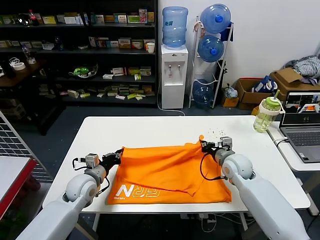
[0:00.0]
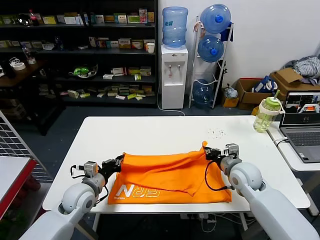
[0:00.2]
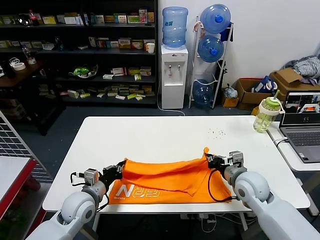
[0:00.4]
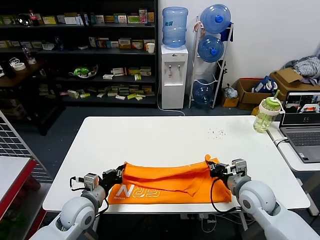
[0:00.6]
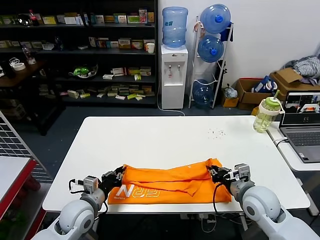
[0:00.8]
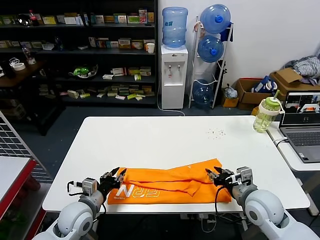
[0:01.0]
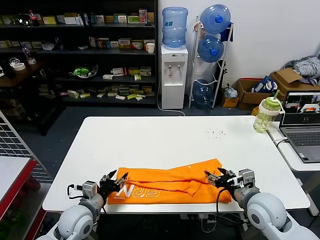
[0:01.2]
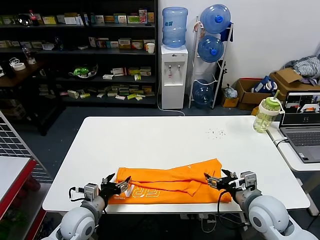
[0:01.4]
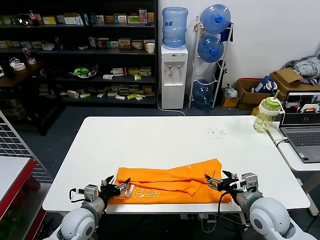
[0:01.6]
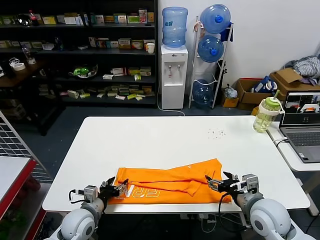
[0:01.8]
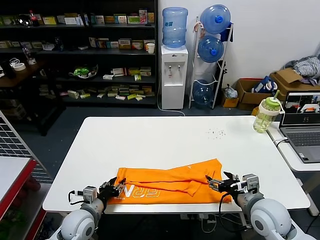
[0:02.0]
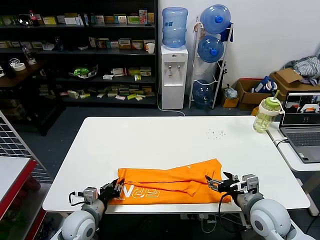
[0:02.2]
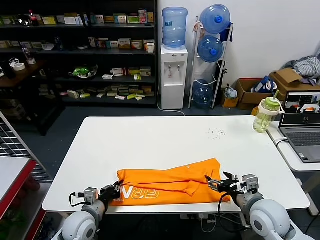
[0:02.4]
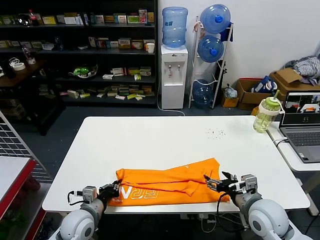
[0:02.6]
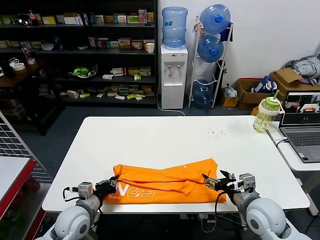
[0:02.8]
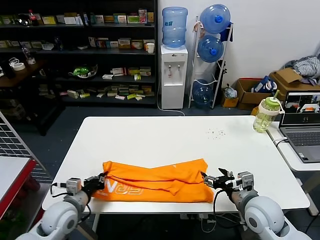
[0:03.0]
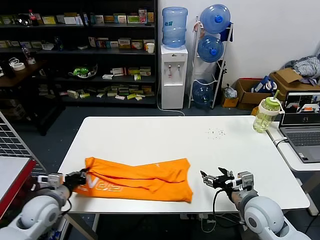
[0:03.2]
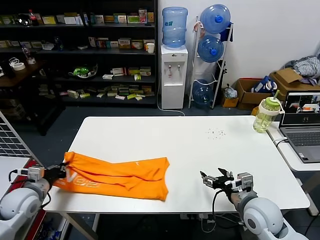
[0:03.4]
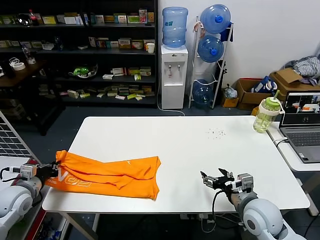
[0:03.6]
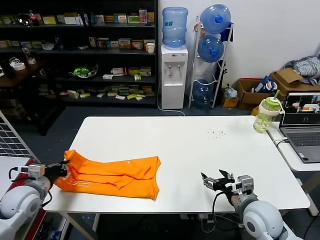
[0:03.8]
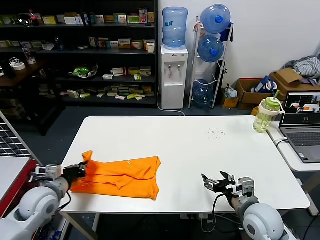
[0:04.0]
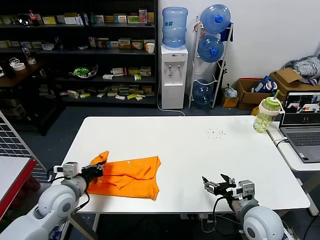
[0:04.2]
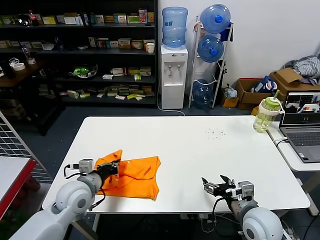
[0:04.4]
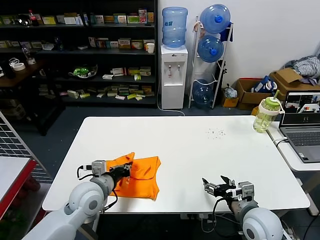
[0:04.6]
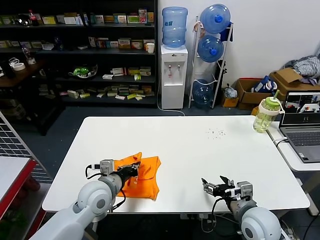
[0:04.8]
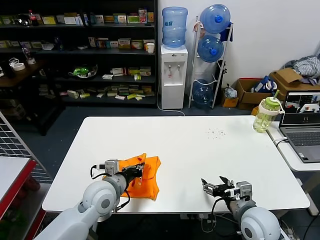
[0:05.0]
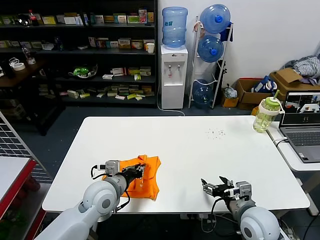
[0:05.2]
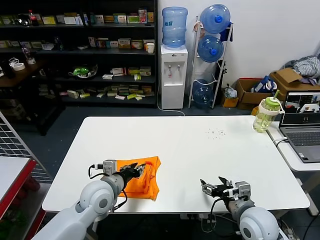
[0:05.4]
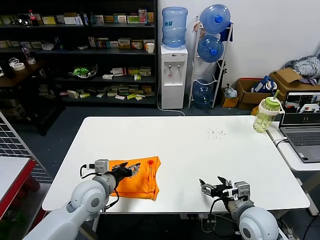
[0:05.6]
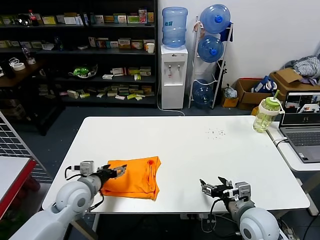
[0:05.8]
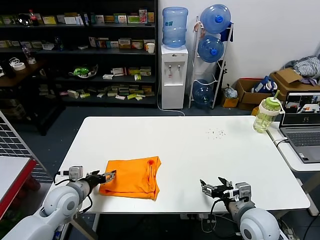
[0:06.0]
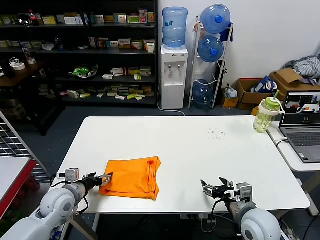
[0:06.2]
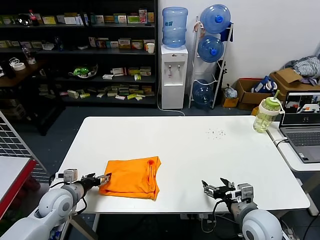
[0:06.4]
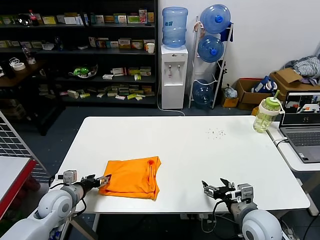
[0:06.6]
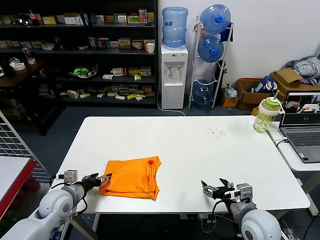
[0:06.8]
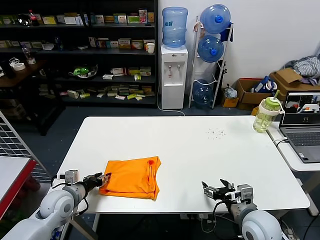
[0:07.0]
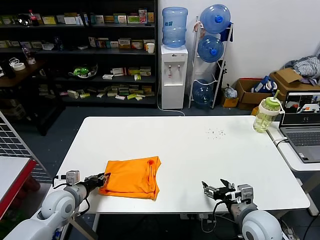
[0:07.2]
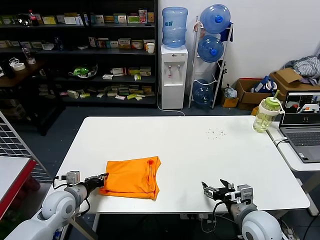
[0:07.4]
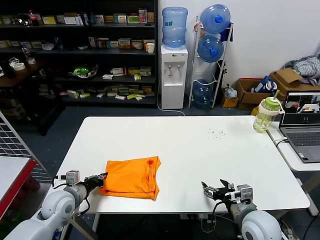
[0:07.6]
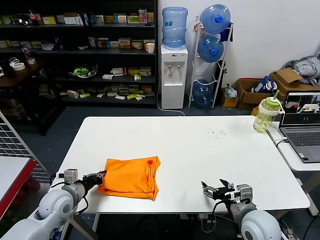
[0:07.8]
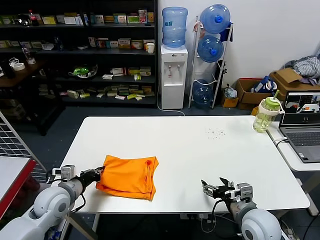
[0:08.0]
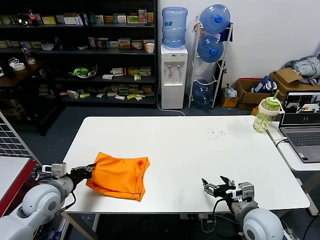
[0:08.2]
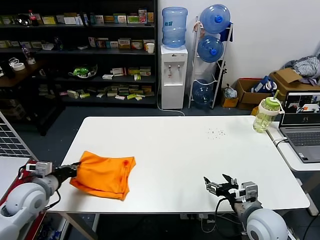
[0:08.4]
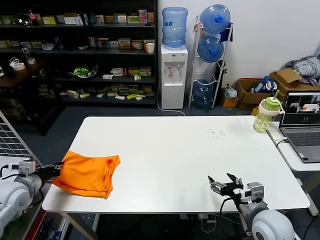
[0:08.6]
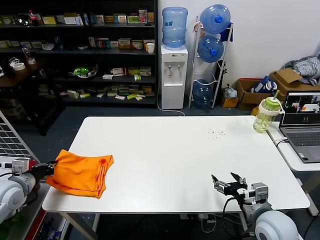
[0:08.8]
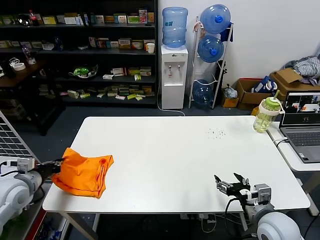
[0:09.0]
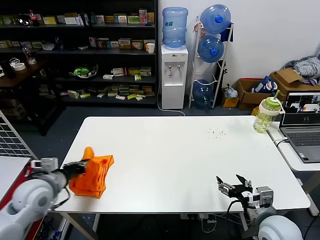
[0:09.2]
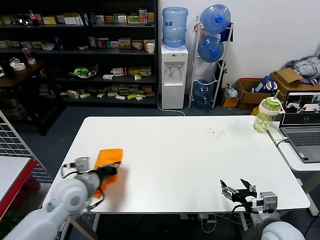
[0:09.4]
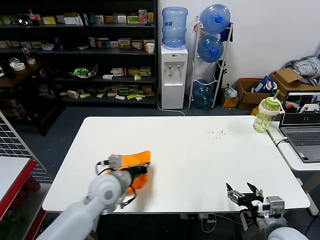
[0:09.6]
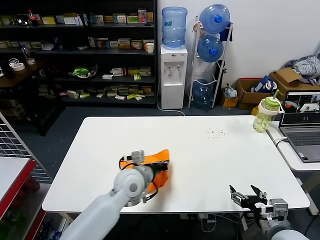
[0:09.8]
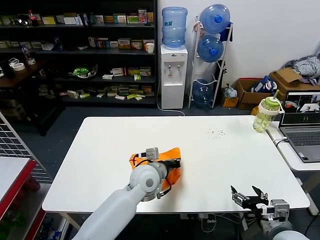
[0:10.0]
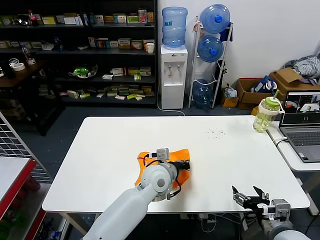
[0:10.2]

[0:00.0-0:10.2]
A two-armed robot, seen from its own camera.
Task of the whole recording: fold and organize the clothes.
Step, 0:00.0 to 0:00.8: use both grippers to drag the upper edge of the fabric backward and fold it over the lower edge.
Step, 0:01.0 to 0:02.4: use the left gripper to clamp the left edge of the fabric.
Step, 0:02.6 to 0:05.4: use the left gripper to drag the left edge of the fabric to the left and folds it over the right edge.
0:00.0 to 0:01.4: The two grippers go about 15 cm backward. The right gripper opens up. Meanwhile the left gripper opens.
0:01.4 to 0:03.0: The left gripper closes up.
0:03.0 to 0:04.4: The left gripper is displaced upward by some 5 cm, and reaches approximately 15 cm to the left, then returns.
0:04.4 to 0:05.8: The left gripper goes to the right and returns, some 10 cm each way, and opens its fingers.
0:05.8 to 0:07.2: The left gripper heads to the left and downward, covering roughly 10 cm, and closes its fingers.
0:07.2 to 0:08.8: The left gripper travels to the left and upward by some 15 cm, and closes up.
0:08.8 to 0:10.2: The left gripper heads to the right, covering roughly 40 cm. The right gripper changes place by roughly 5 cm.

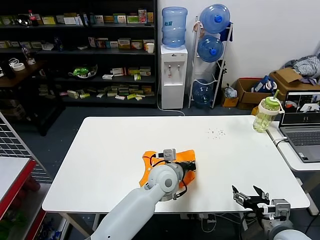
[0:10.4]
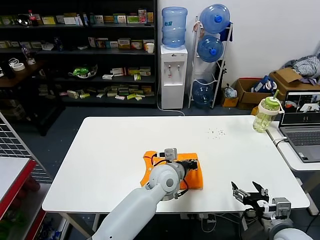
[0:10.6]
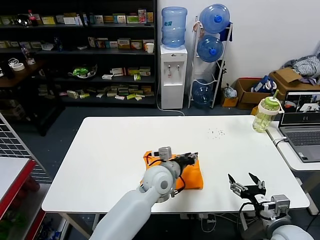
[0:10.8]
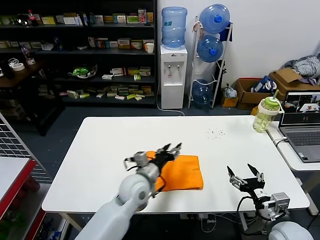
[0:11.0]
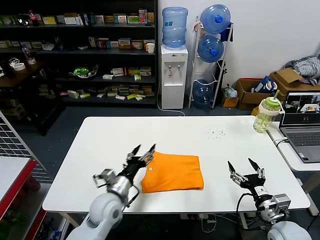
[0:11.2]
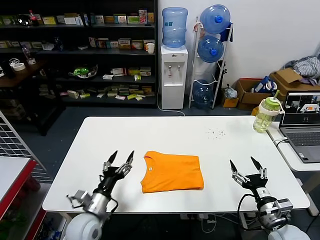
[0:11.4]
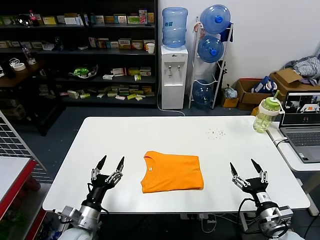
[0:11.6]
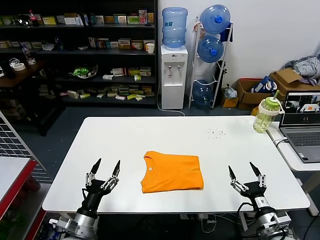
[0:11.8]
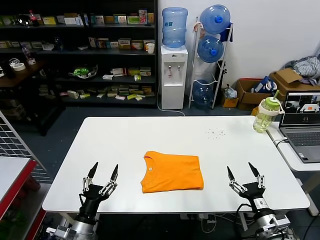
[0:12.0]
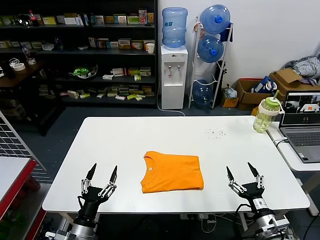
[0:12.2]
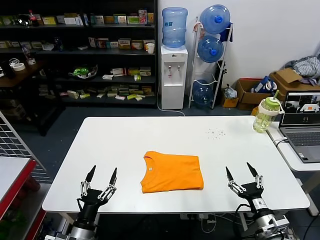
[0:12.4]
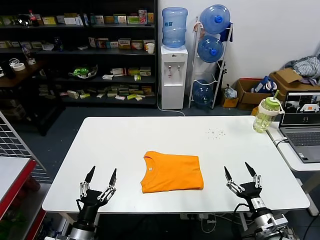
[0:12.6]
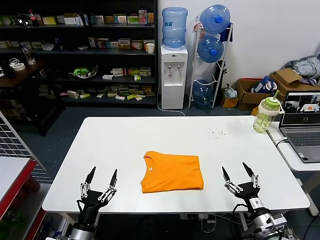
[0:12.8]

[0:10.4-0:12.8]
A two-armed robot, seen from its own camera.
Task of the whole recording: fold and organize the clothes.
Step, 0:10.8 to 0:12.8: Drag the clothes to the center of the table.
0:10.4 to 0:11.6: The right gripper shifts roughly 5 cm downward; the left gripper heads to the left and backward, covering approximately 30 cm, and opens up.
0:11.6 to 0:12.8: The left gripper shifts about 5 cm backward.
